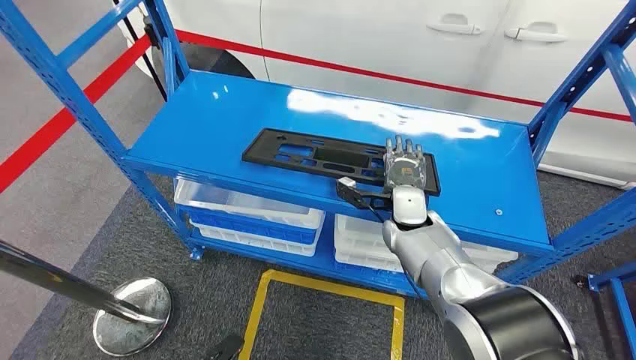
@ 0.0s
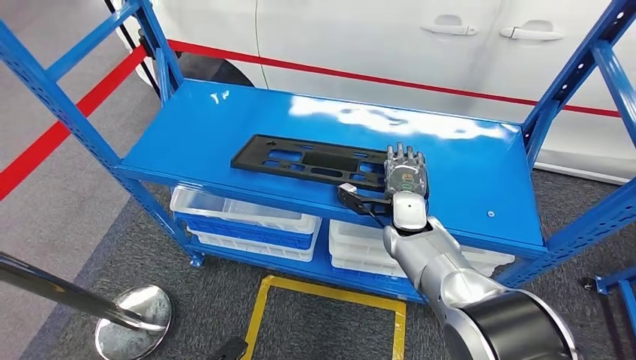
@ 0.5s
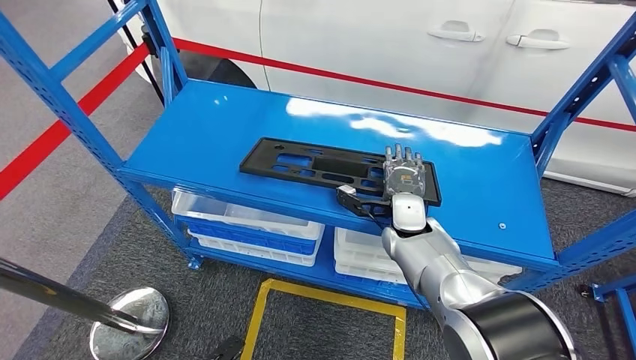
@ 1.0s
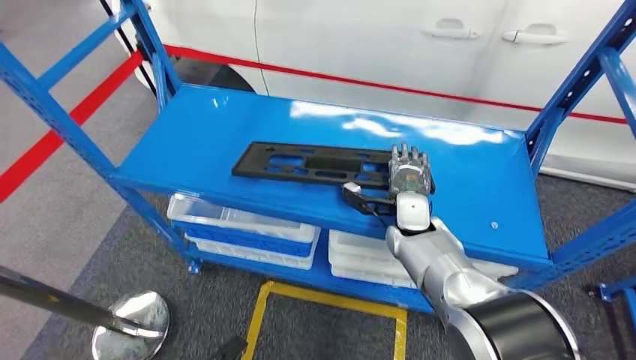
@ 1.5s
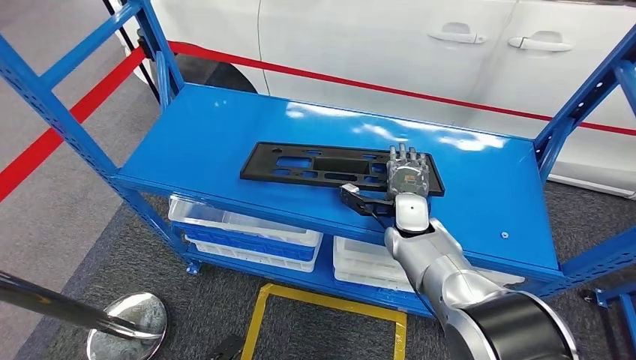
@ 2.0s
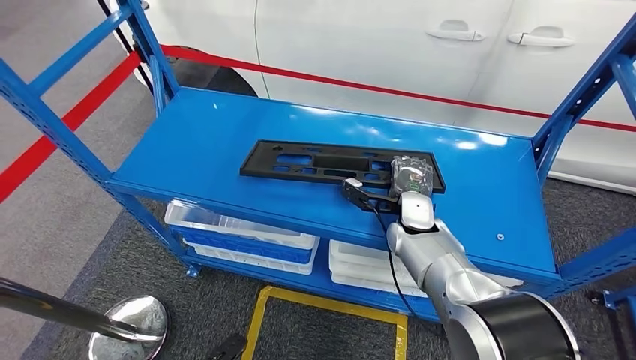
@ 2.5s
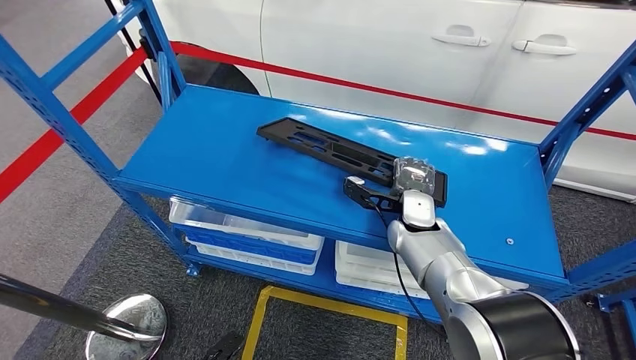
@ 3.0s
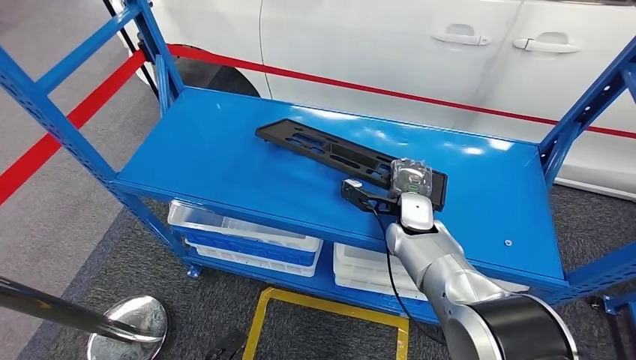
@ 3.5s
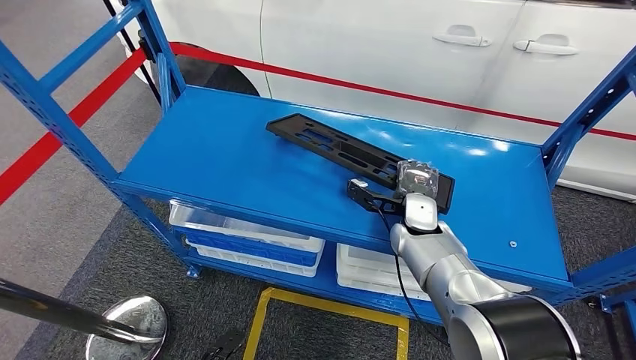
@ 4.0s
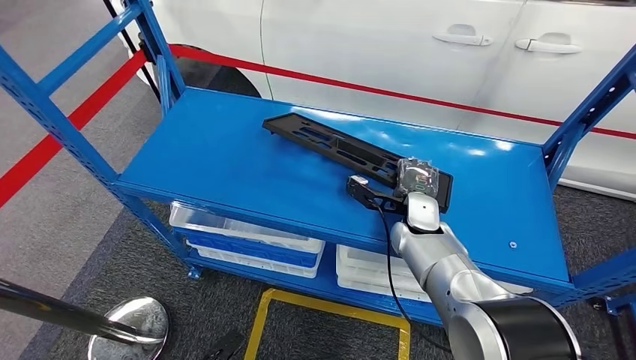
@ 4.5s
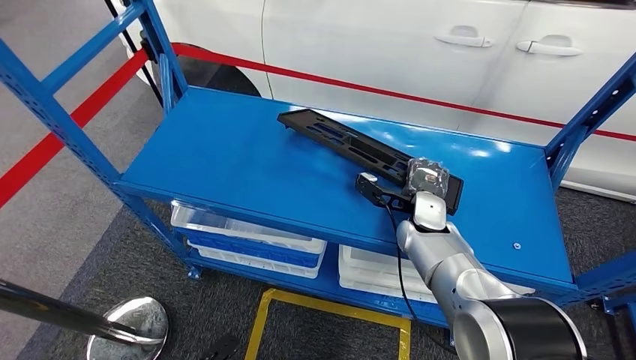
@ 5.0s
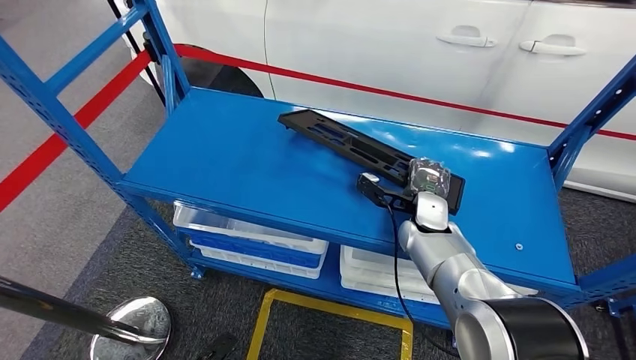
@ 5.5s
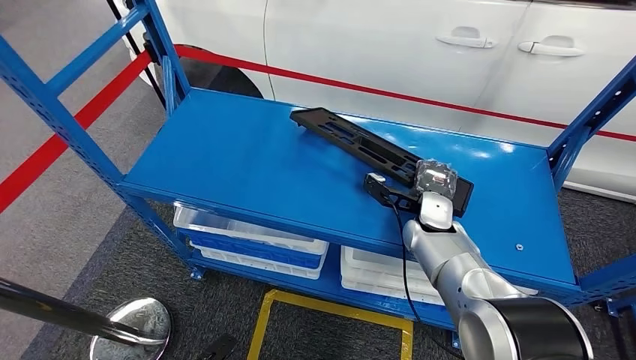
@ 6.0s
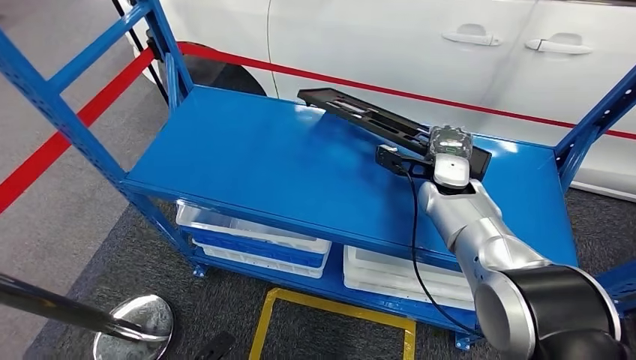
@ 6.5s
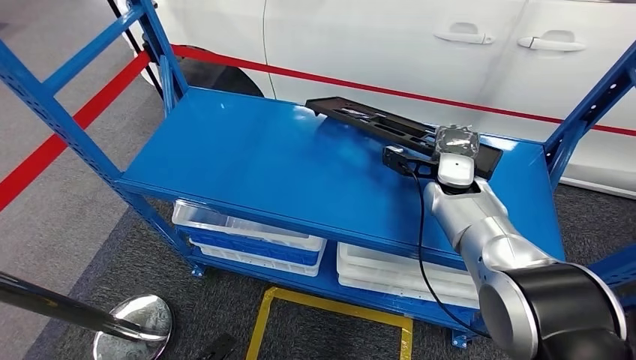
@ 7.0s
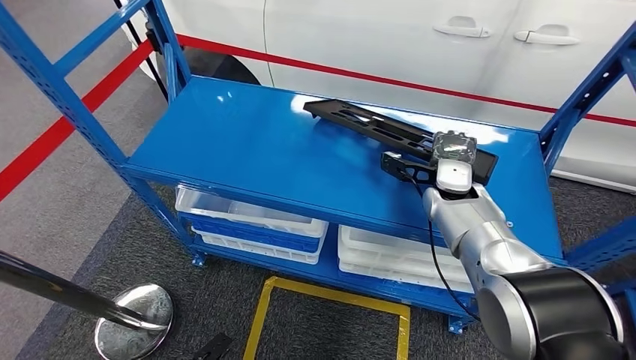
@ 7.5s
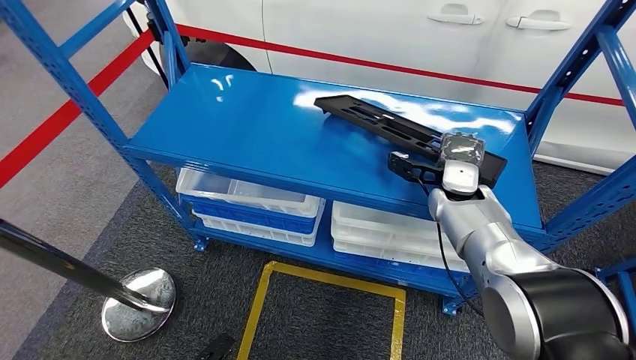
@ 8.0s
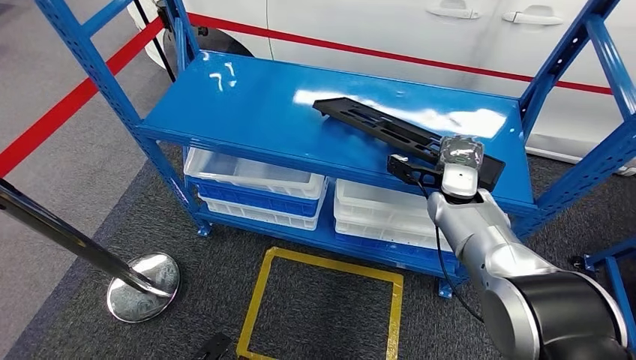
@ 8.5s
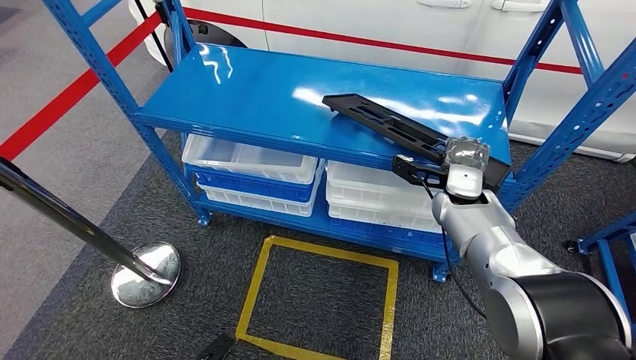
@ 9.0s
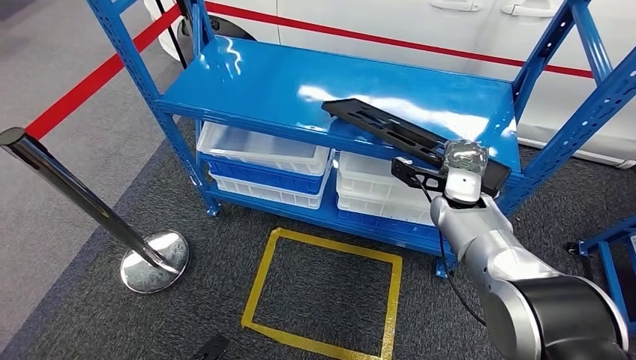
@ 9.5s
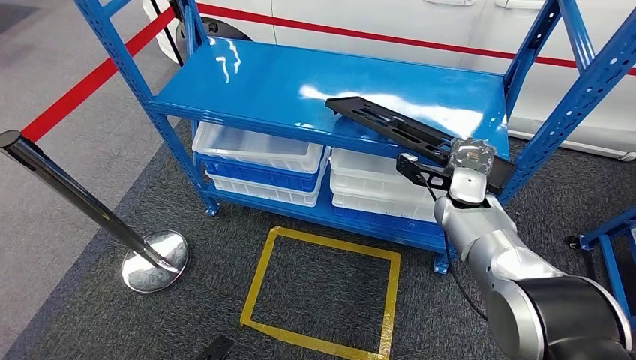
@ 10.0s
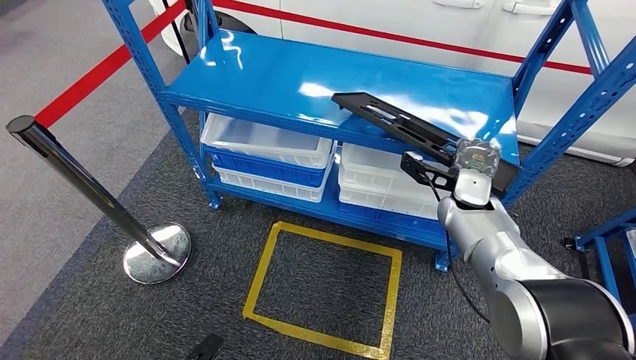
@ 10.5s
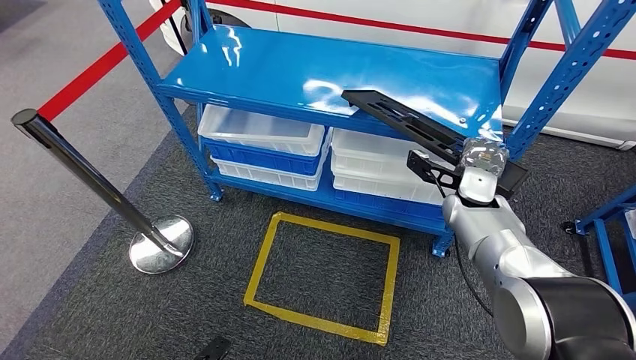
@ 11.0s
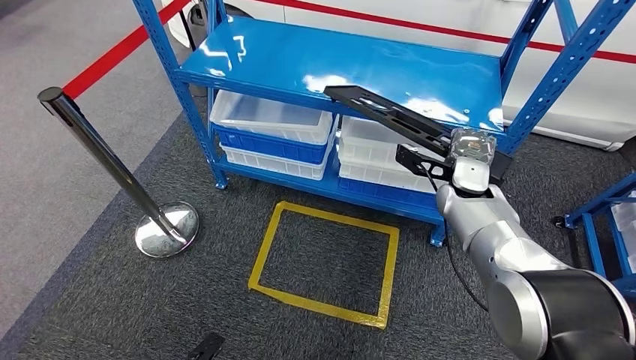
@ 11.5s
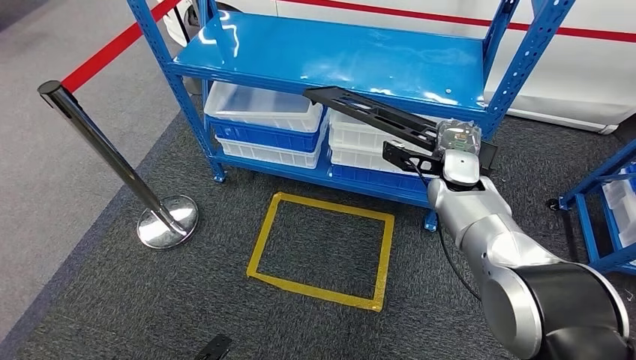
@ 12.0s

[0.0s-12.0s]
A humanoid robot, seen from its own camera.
Step, 0.0s to 10.5s: Pick up the large material from the shelf.
4.0s to 6.0s: The hands make only small movements.

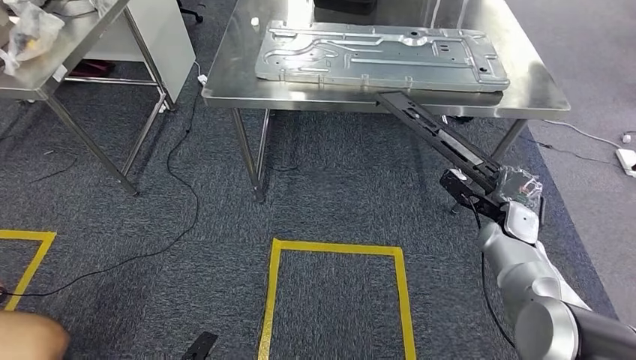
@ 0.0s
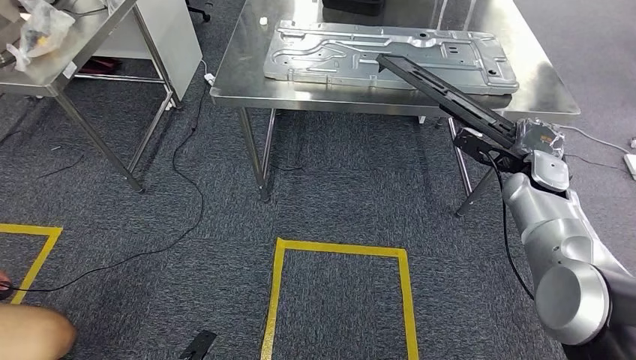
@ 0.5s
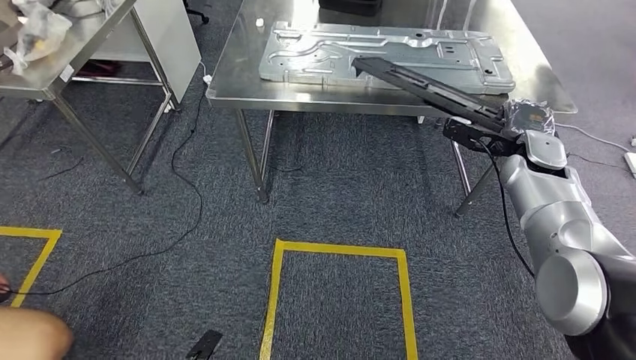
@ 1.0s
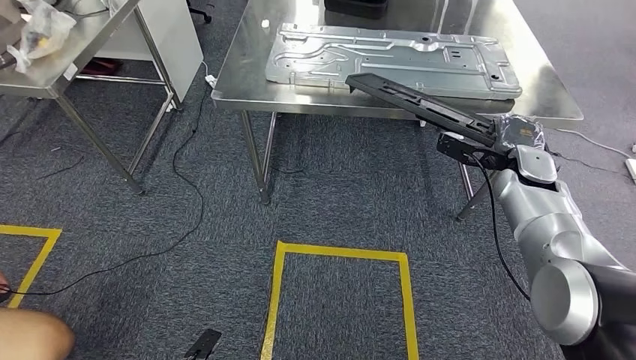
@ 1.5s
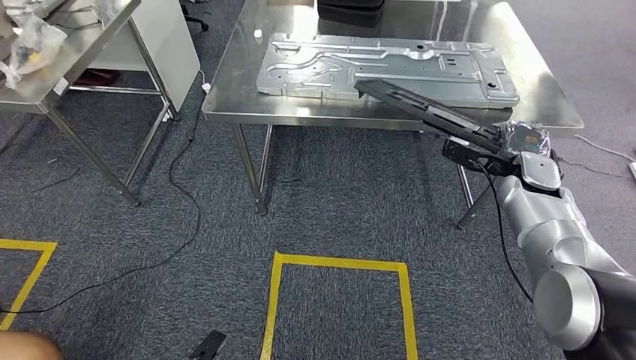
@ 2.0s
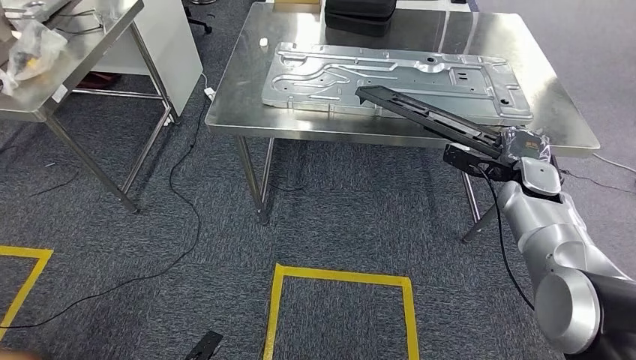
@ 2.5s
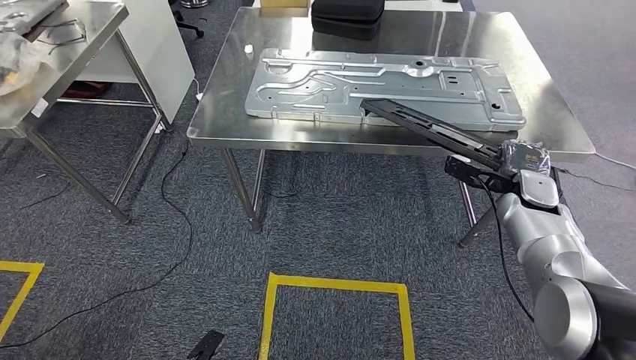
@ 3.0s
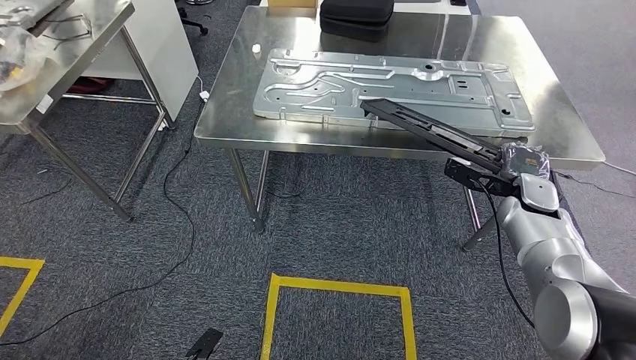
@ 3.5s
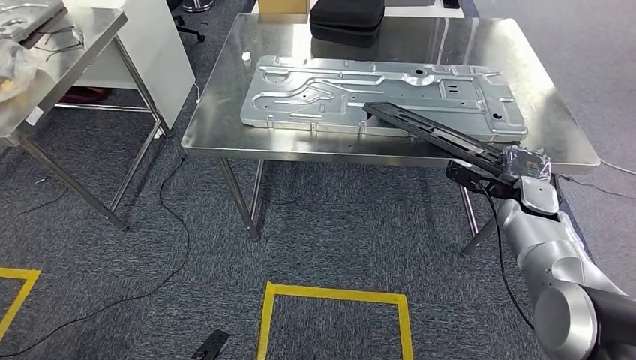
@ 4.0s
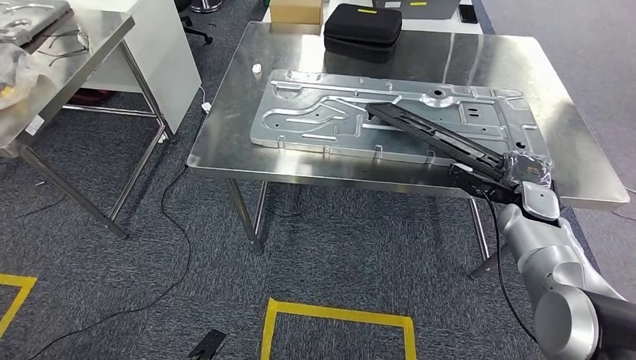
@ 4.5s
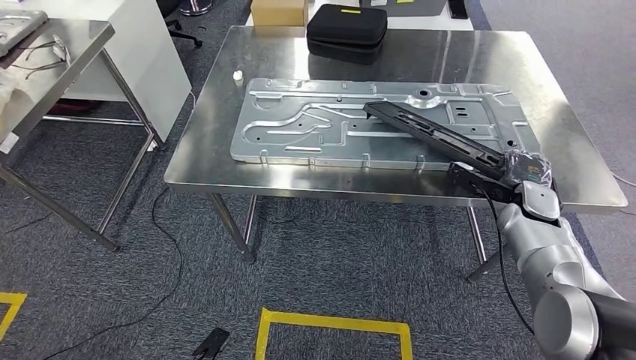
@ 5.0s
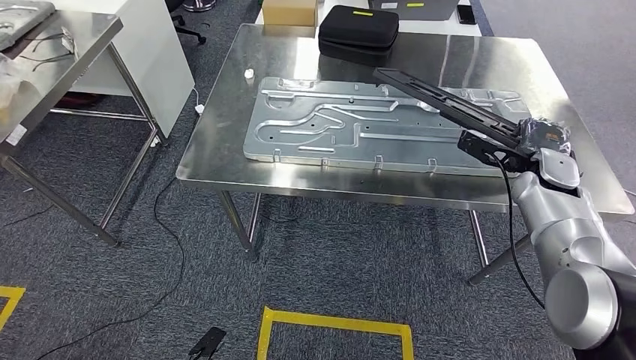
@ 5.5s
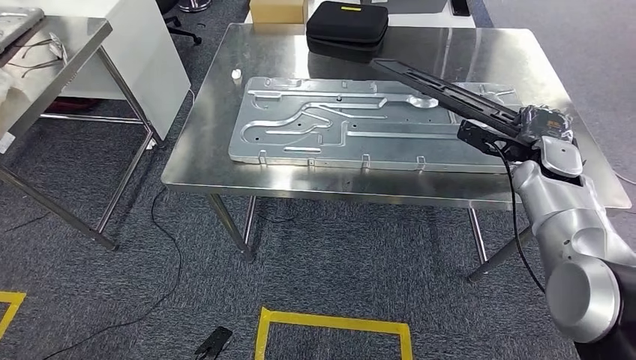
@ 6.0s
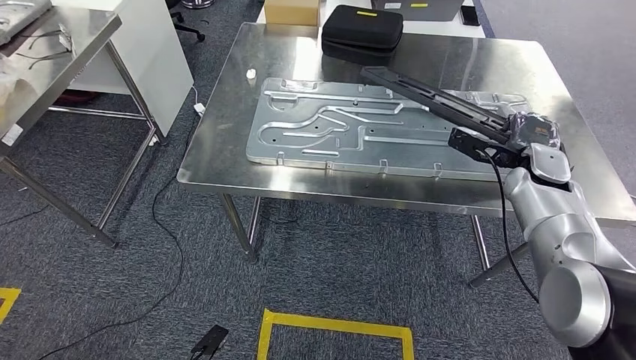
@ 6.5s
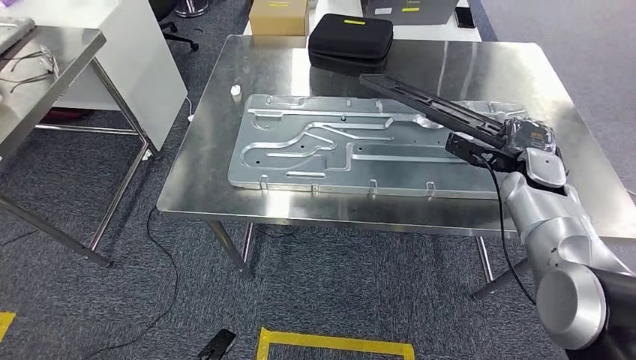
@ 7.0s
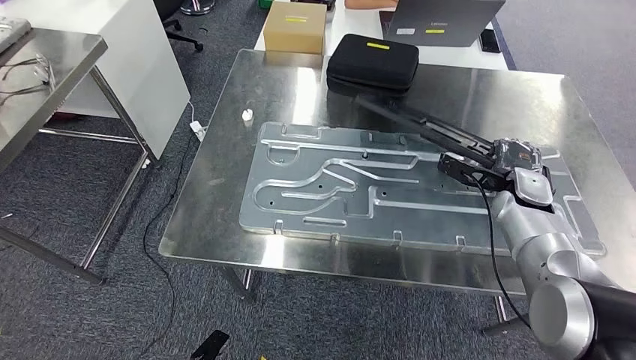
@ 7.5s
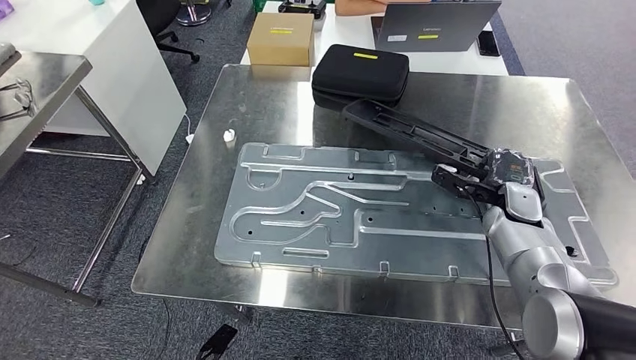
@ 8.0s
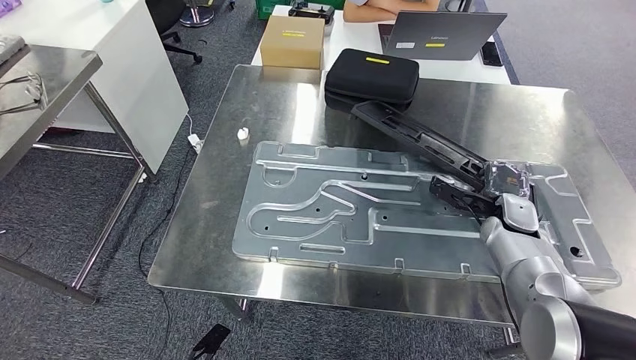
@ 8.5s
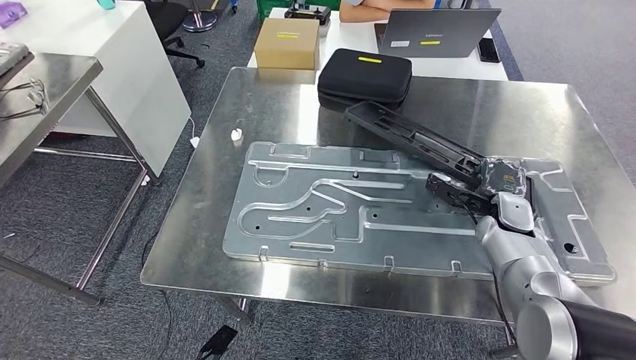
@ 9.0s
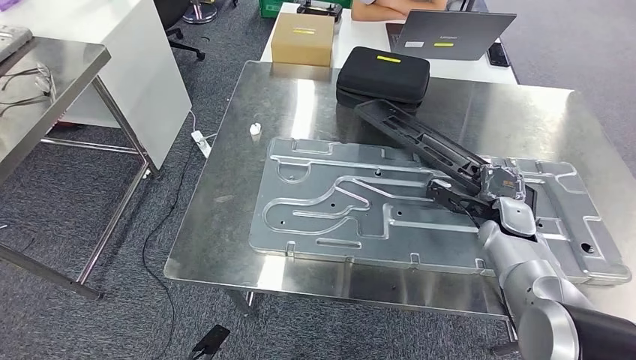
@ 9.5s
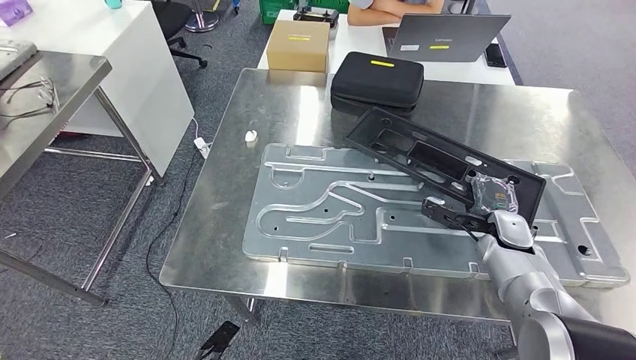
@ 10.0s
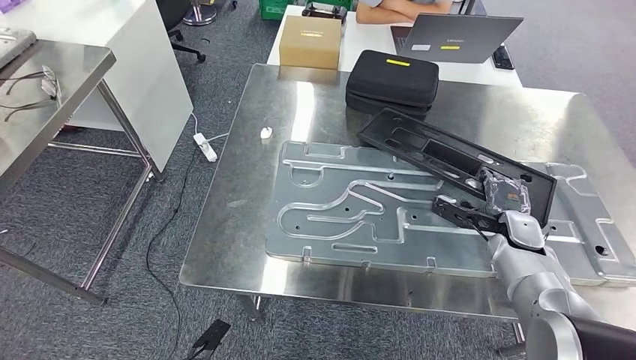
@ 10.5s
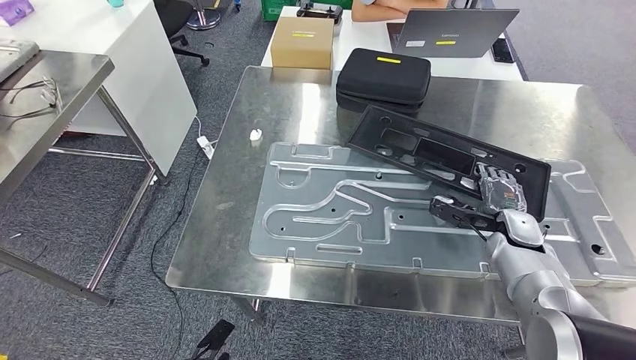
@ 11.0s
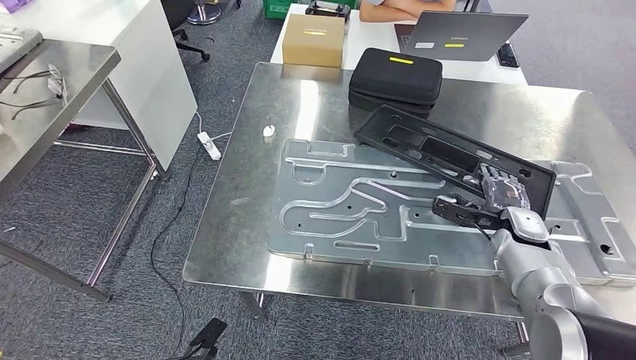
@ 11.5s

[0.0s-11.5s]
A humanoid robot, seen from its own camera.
Step, 0.0s to 2.5s: Move the large material to the workbench.
